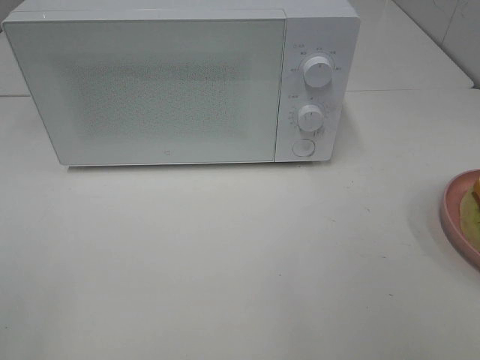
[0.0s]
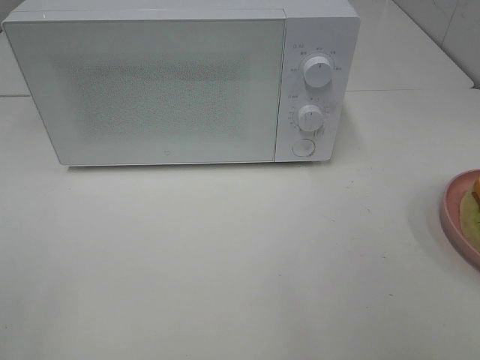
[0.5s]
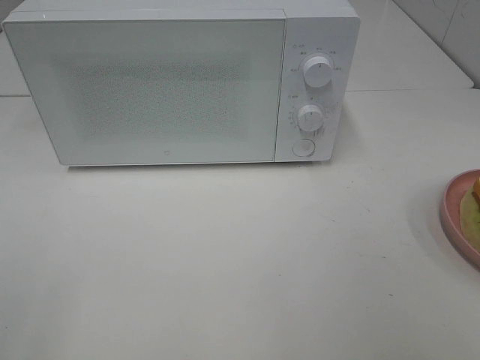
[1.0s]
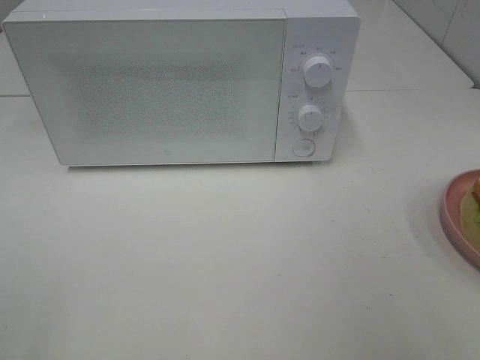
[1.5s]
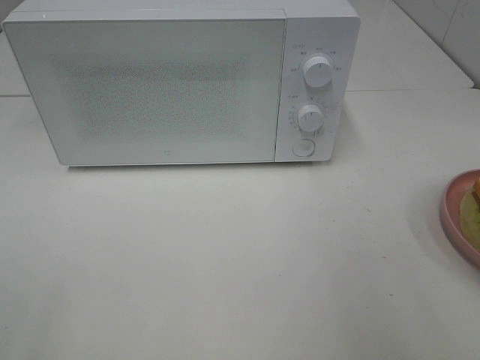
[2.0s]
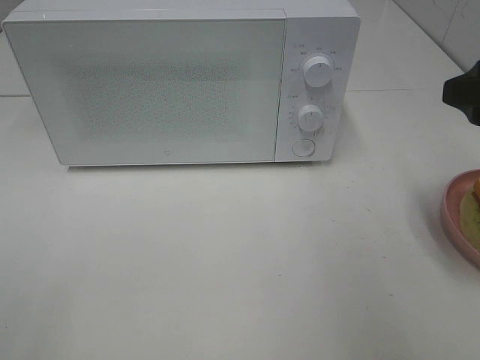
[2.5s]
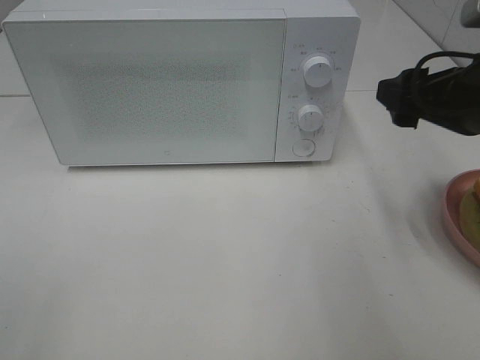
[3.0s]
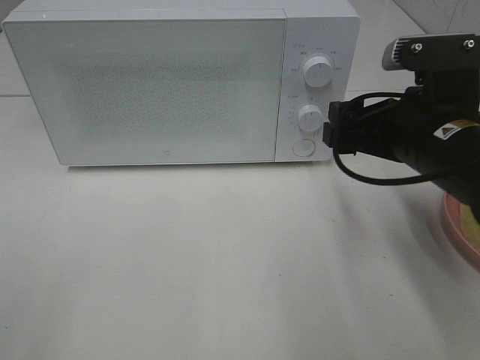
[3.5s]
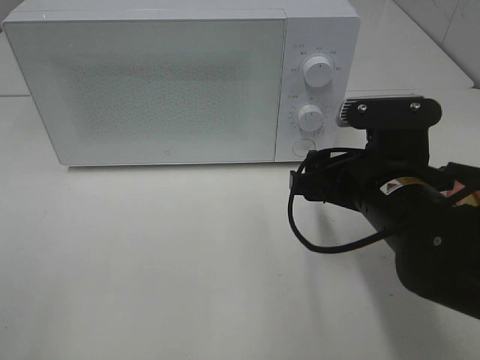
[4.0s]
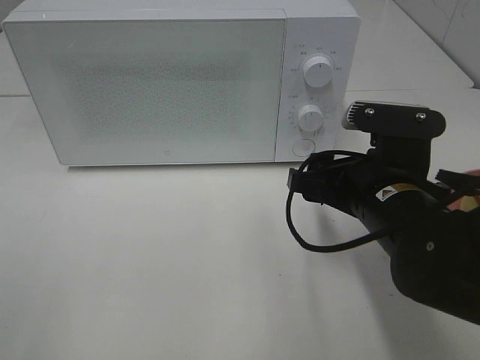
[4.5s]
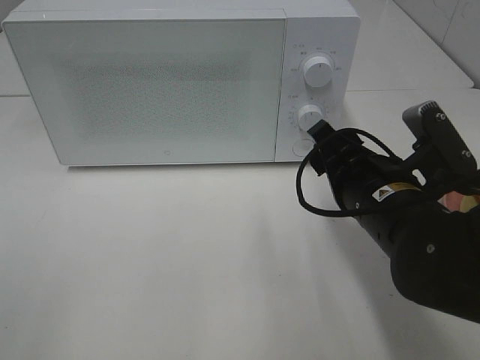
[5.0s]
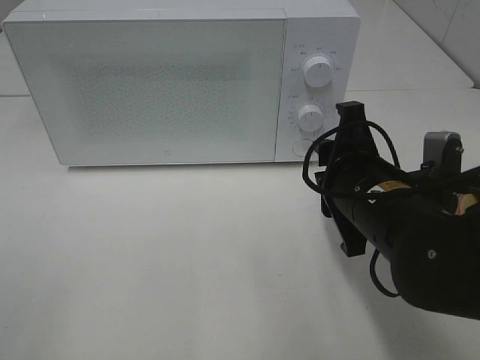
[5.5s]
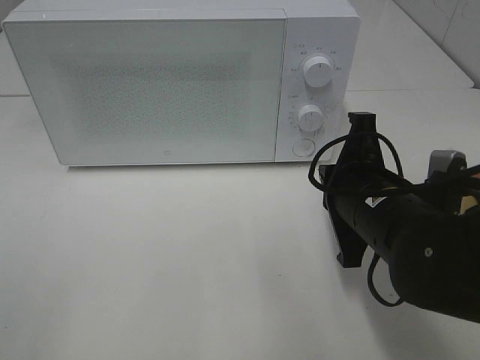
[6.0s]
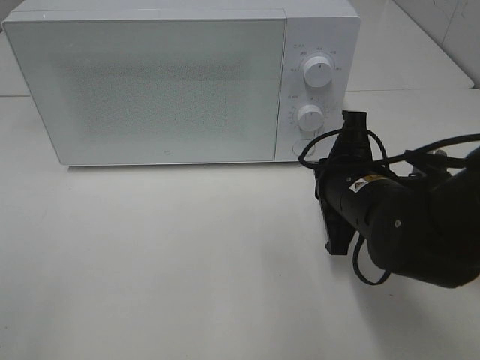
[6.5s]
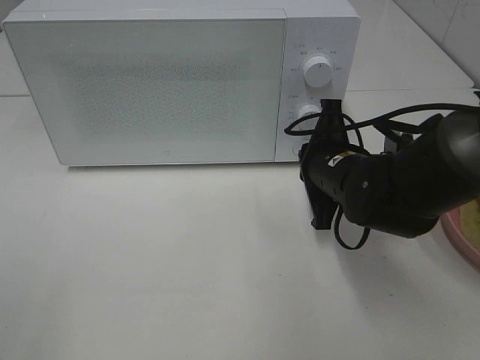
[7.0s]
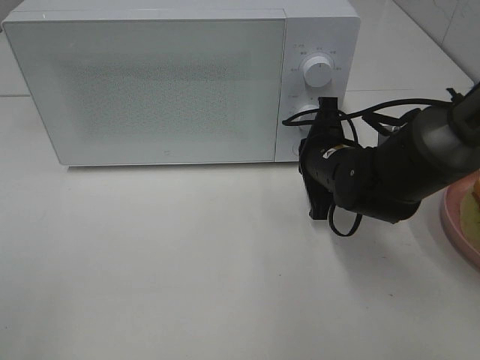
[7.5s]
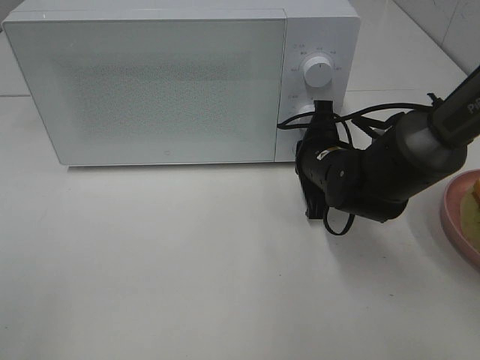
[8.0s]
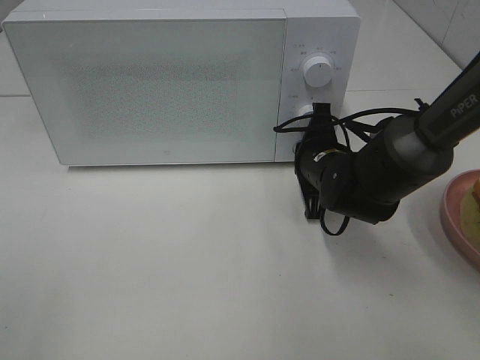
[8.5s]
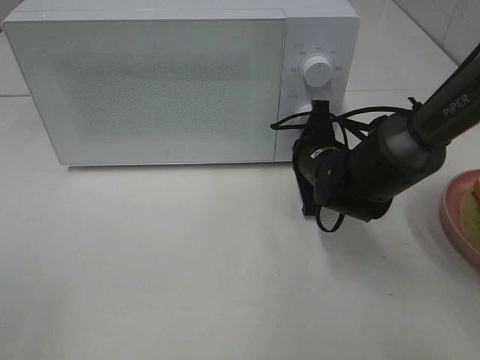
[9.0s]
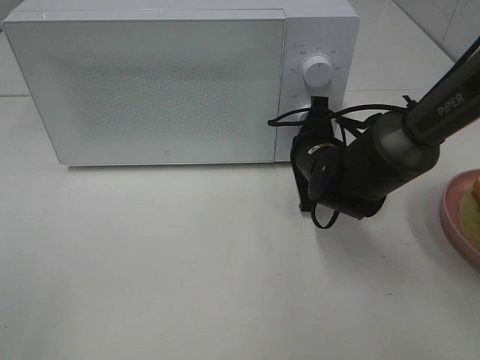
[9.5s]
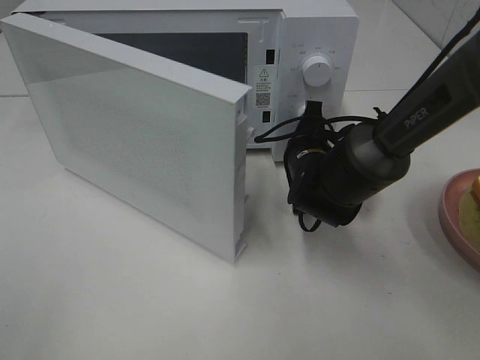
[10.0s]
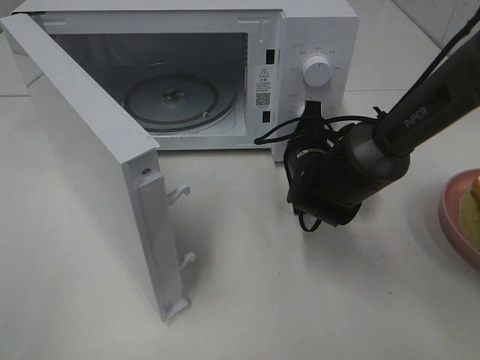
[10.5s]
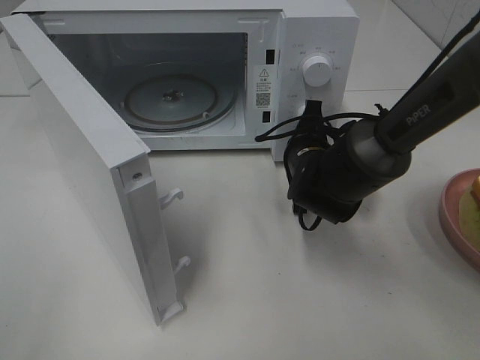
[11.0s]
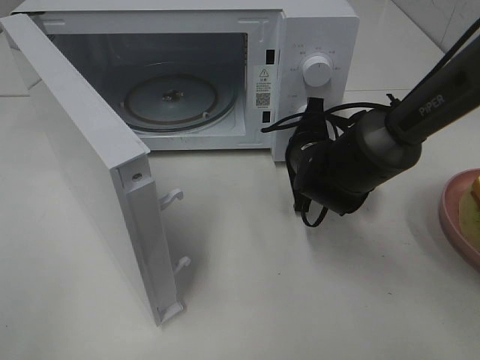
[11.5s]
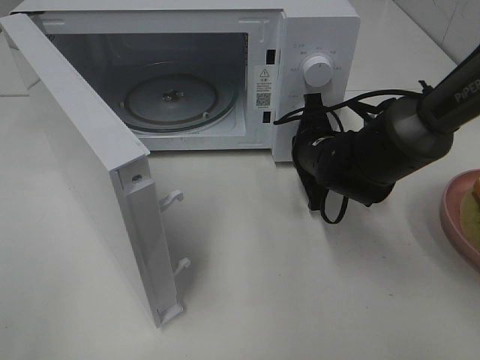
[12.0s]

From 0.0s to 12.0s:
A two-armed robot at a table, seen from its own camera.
Task of the whole recording: Heat Sandwich.
From 2.0s to 4.0s: The right gripper goes approximately 20 cm downward, to the left and forward.
From 4.0s to 6.0s: The right gripper closes its fingers.
From 6.0s to 8.0s: The right gripper travels forward and downward by some 15 cm.

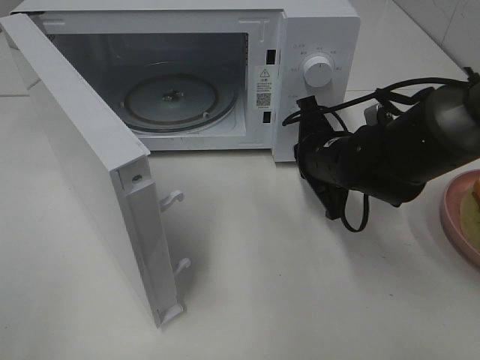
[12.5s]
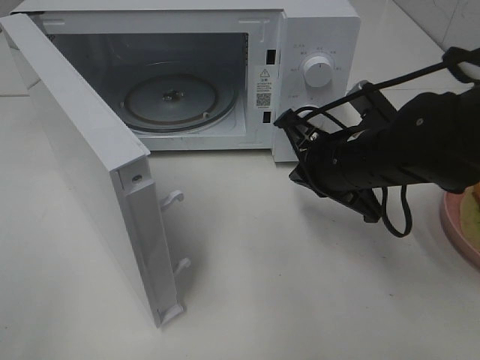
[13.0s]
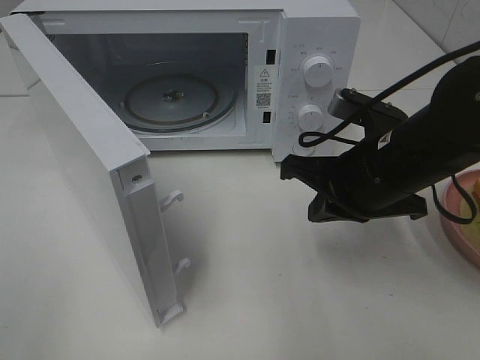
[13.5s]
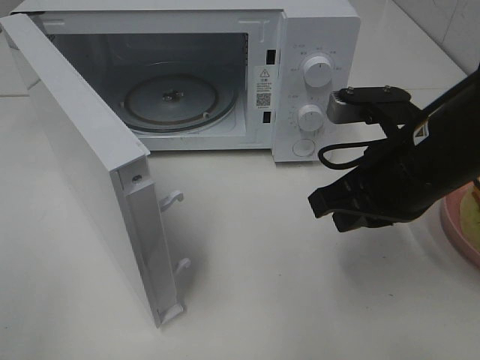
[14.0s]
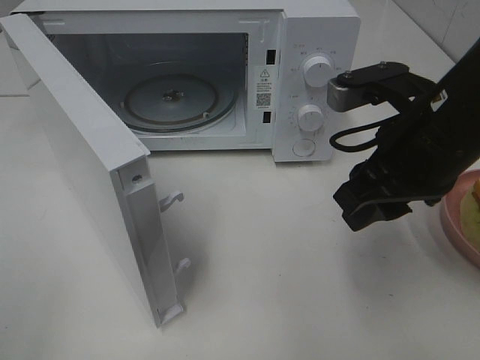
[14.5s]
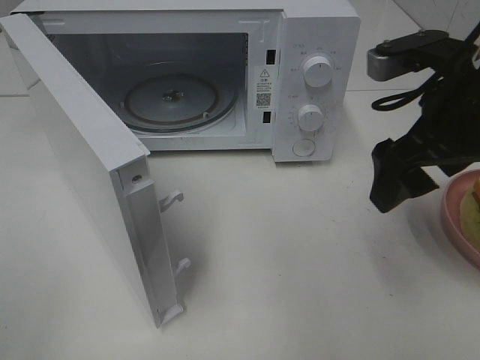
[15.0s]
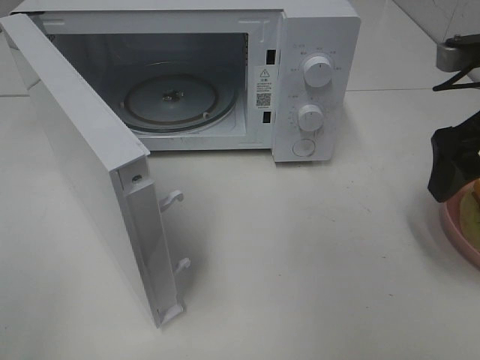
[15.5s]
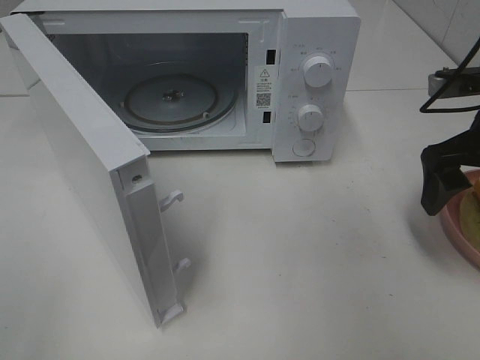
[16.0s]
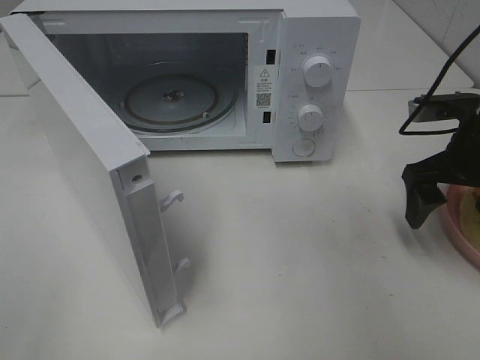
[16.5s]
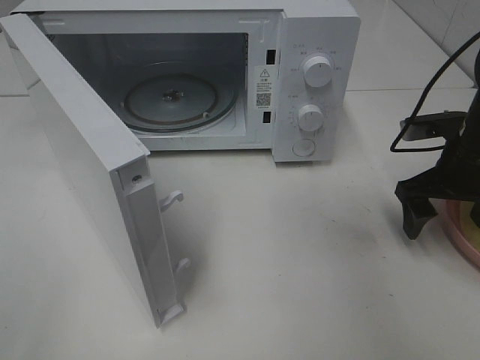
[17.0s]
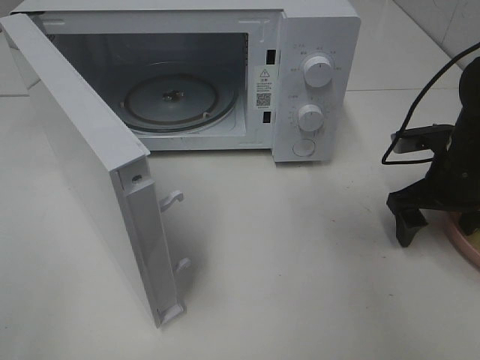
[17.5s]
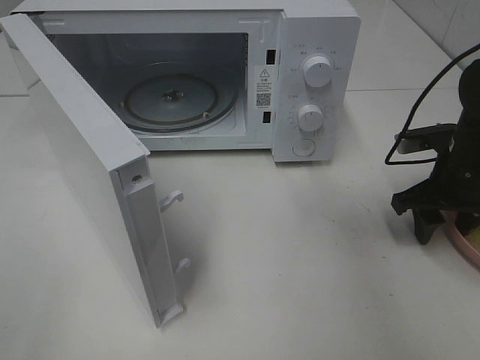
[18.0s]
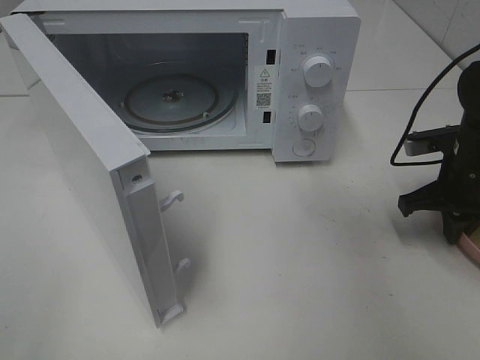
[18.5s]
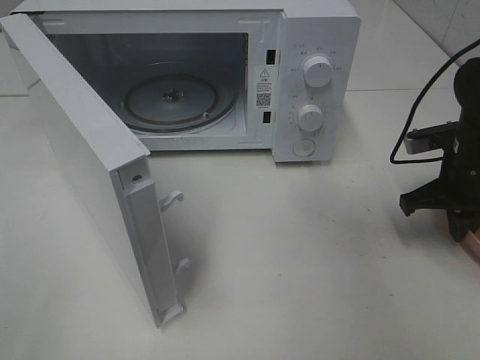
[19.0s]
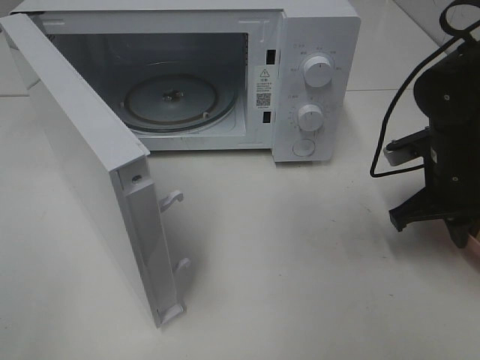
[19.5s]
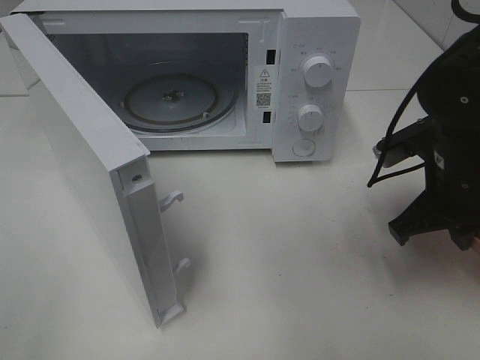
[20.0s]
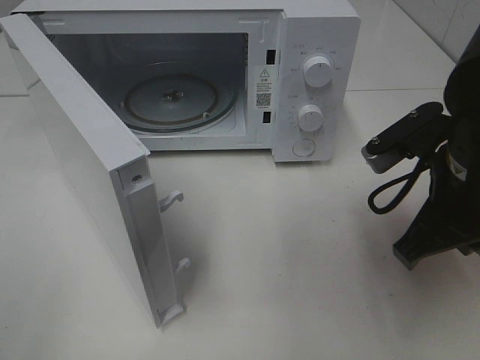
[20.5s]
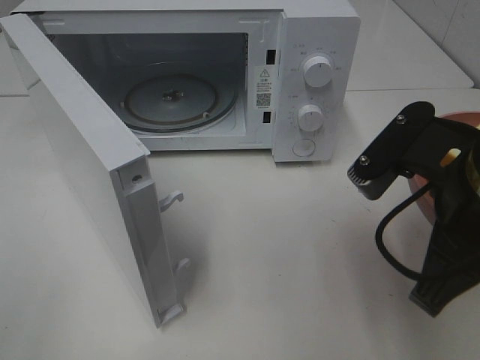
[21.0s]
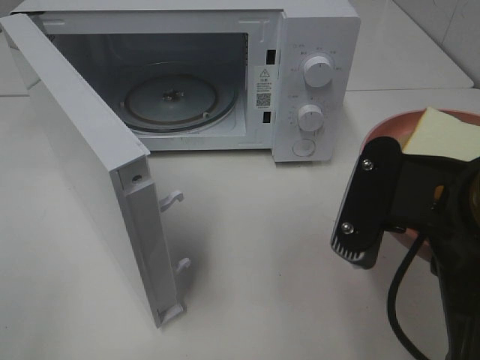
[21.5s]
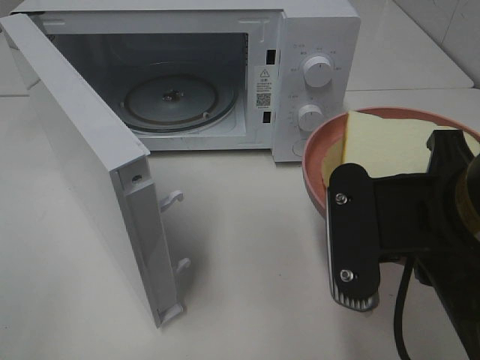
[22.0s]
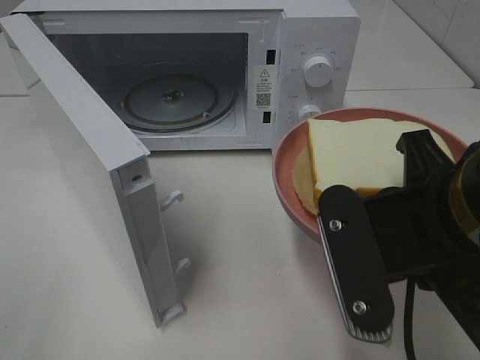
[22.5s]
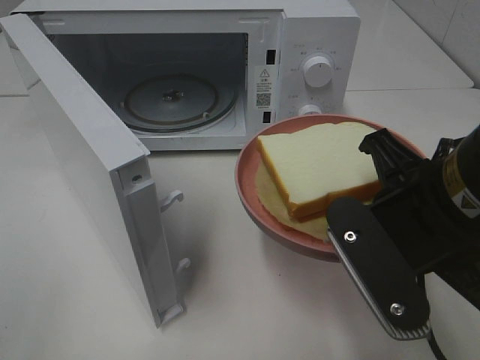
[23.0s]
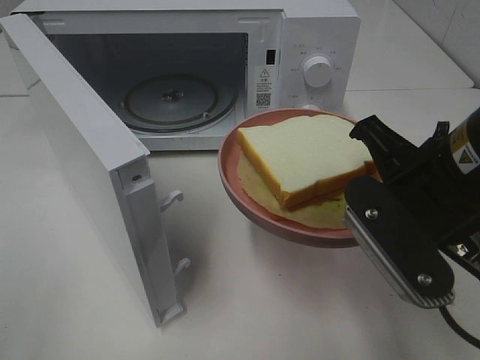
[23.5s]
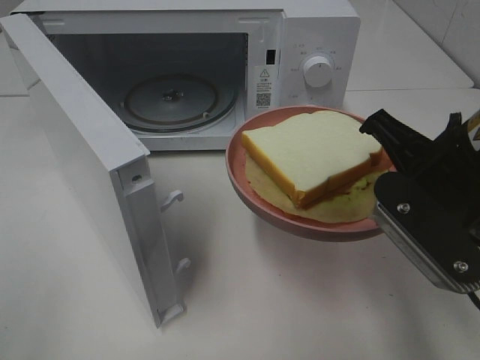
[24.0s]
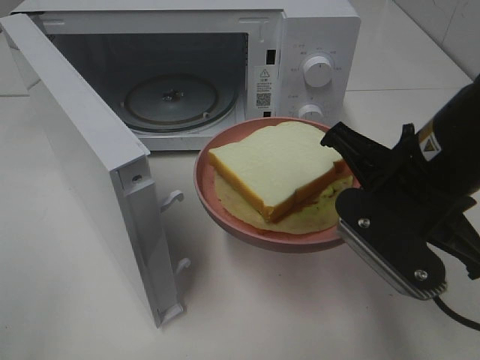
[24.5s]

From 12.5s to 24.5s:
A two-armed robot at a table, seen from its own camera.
Task of the whole recording: Heat Sandwich.
Step, from 13.5s to 18.5s: Right hand: grab the plate with the sandwich.
From 12.5s to 14.5s: The right gripper travels upward and backward by some 15 cm, and opens its fingers.
From 14.5s to 16.5s: The right gripper travels to the right, forward and downward by approximately 15 cm, and opens.
From 16.5s to 18.5s: The right gripper travels downward by about 5 cm, and closes its fingers.
From 18.5s to 20.5s: The right gripper moves backward, to the left and upward, roughly 20 cm.
From 20.5s to 22.5s: The right gripper shifts approximately 10 cm backward and to the left.
From 22.5s to 24.5s: The right gripper shifts some 10 cm forward.

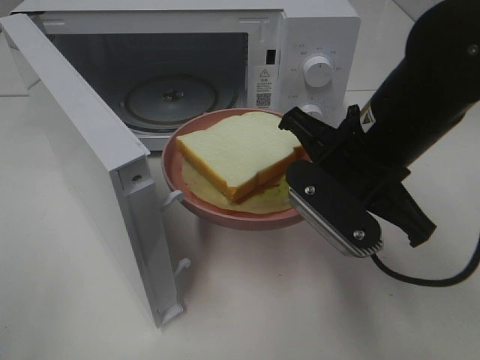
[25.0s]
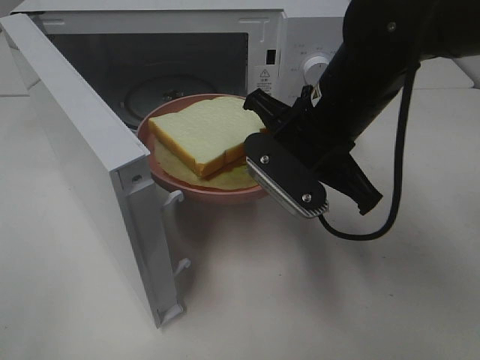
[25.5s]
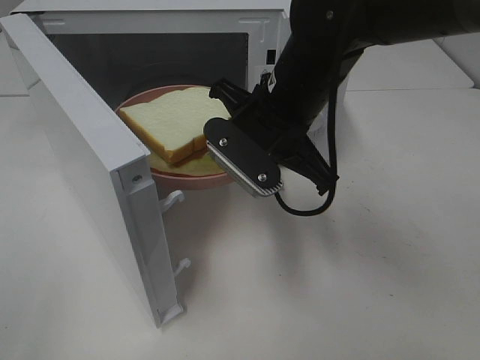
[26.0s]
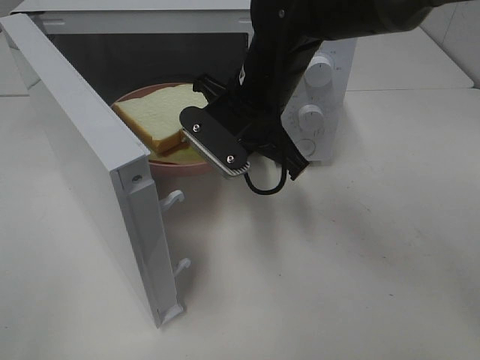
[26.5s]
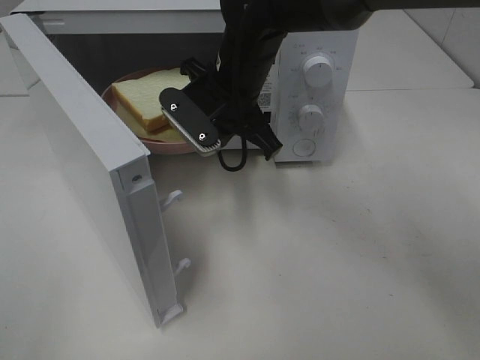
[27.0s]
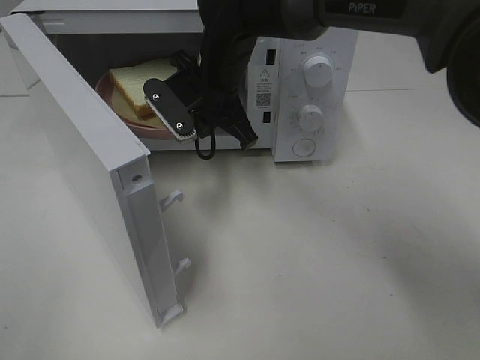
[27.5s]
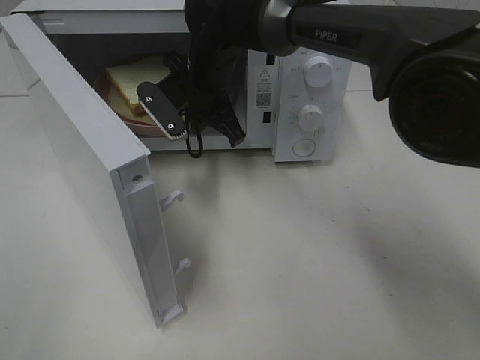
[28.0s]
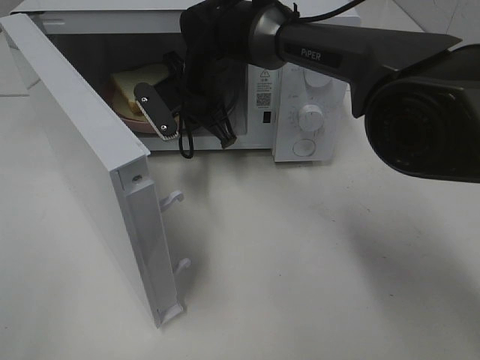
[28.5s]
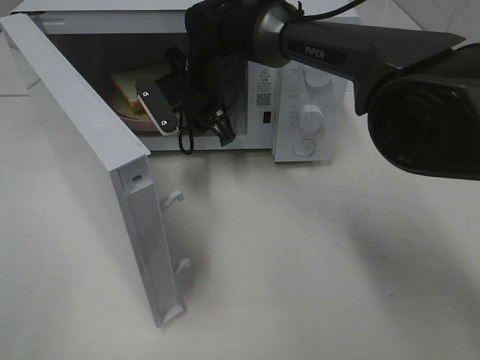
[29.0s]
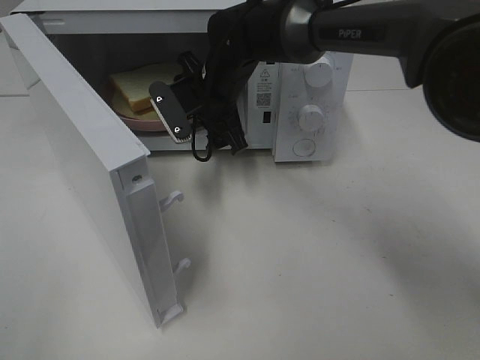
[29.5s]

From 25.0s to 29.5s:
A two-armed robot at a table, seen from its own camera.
Task of the whole recording: Heat Sandwich.
From 25.0s to 27.0s: The right gripper is displaced forward and to the left by some 20 cm.
From 27.0s to 29.5s: The right gripper shifts about 5 cm forward, and opens its fingers.
